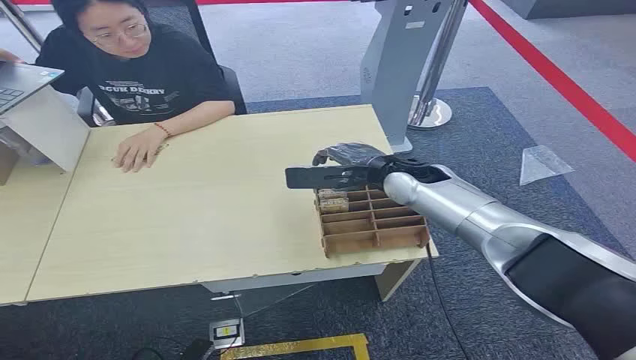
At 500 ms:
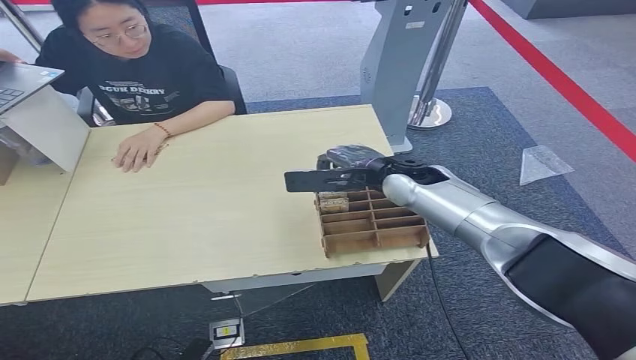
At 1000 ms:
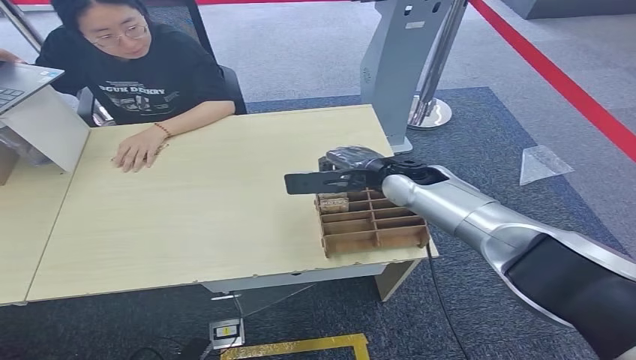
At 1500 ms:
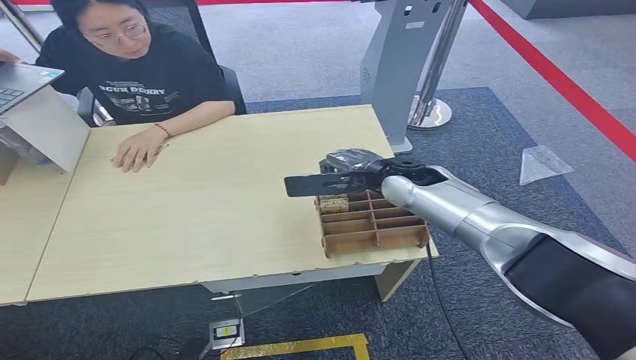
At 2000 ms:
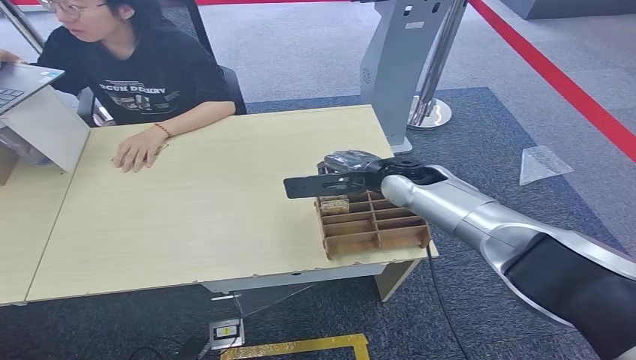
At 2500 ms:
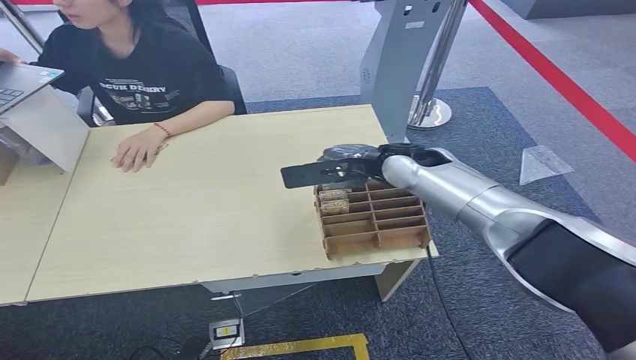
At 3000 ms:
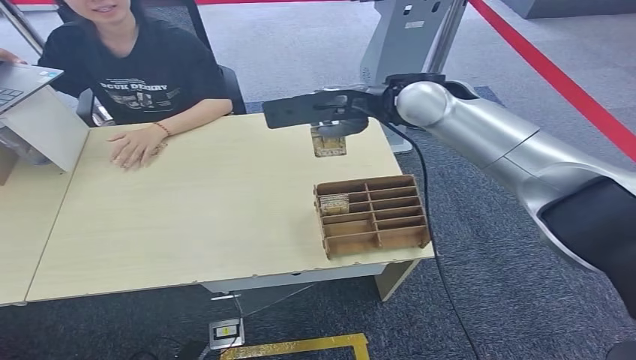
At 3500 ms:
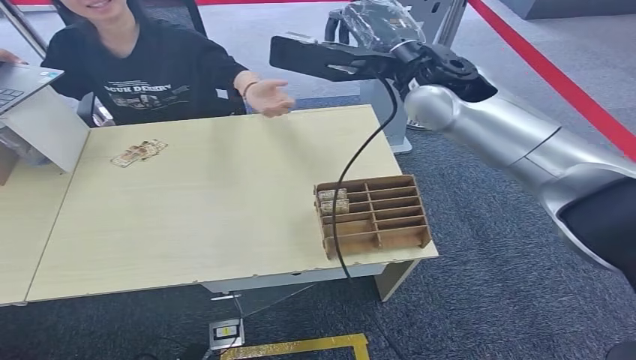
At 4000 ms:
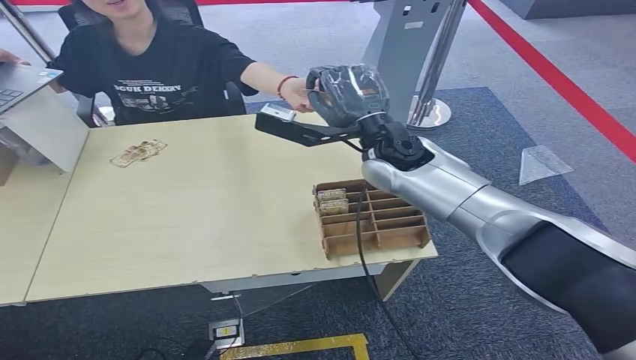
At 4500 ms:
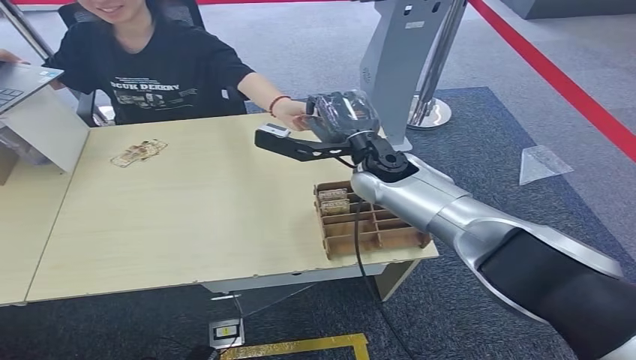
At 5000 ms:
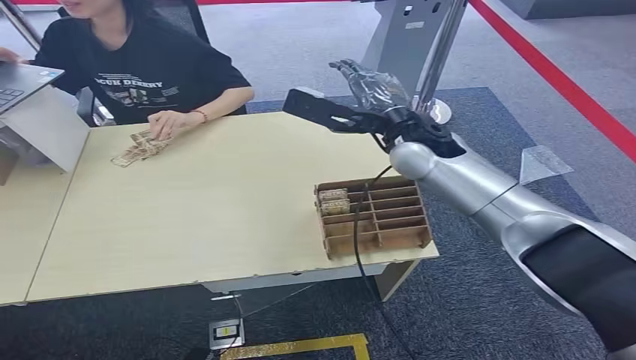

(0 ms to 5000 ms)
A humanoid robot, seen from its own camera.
Step, 0 ms - 3000 ms: Pick up the room card from the card holder.
Step, 3500 ms - 4500 ms: Hand the room card to the target.
2500 ms - 5000 ms: The right hand goes up and down, some 25 cm each way, reversing 2 times.
